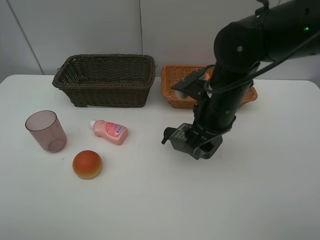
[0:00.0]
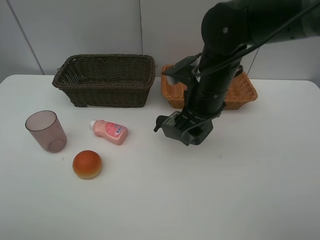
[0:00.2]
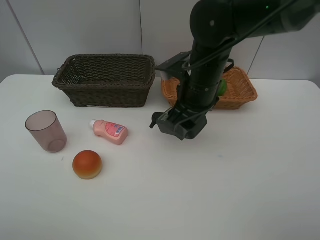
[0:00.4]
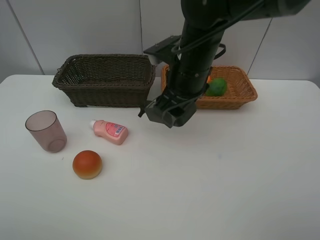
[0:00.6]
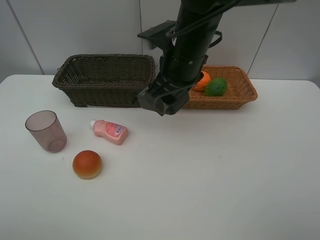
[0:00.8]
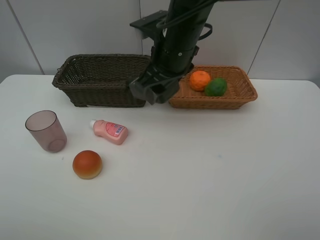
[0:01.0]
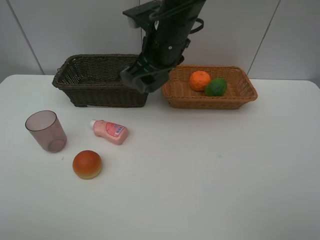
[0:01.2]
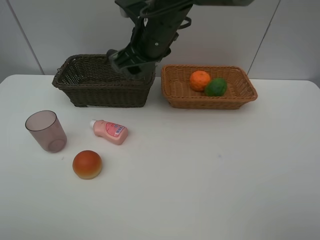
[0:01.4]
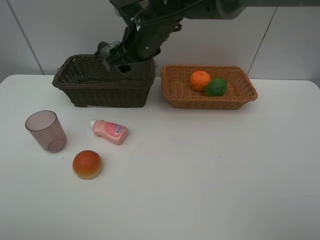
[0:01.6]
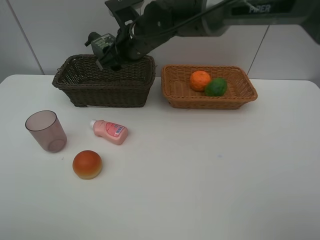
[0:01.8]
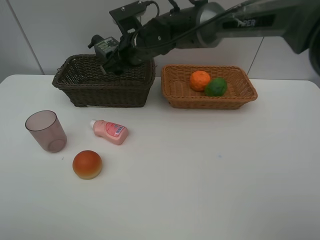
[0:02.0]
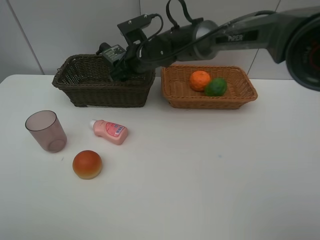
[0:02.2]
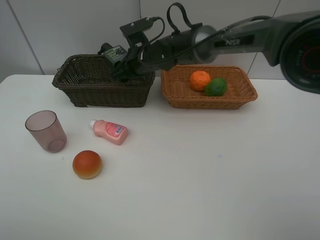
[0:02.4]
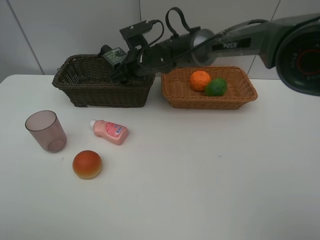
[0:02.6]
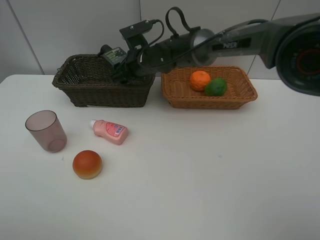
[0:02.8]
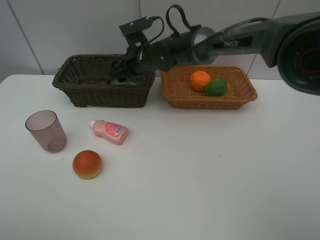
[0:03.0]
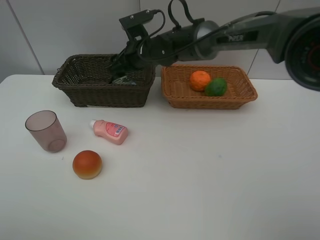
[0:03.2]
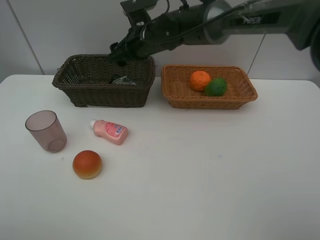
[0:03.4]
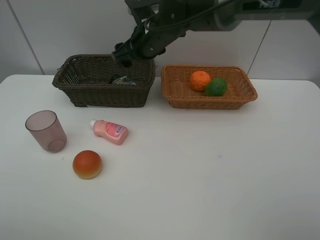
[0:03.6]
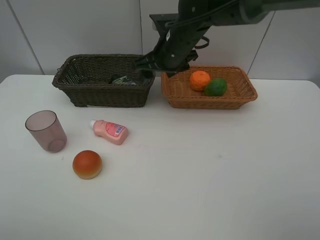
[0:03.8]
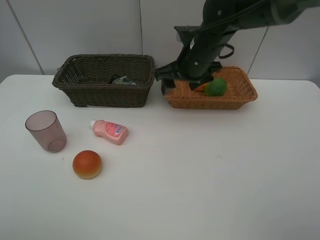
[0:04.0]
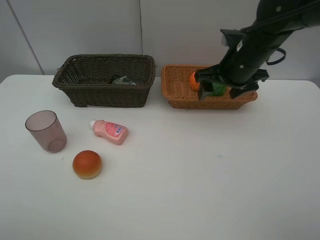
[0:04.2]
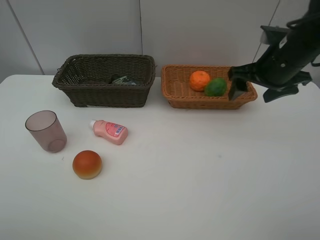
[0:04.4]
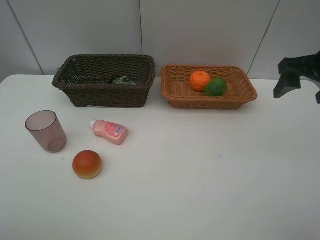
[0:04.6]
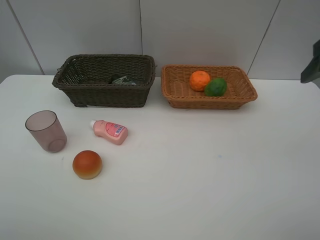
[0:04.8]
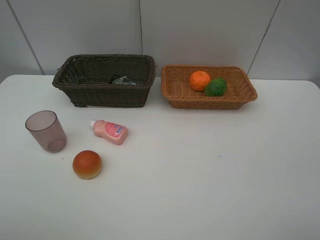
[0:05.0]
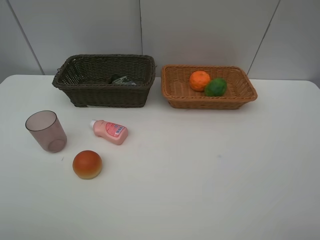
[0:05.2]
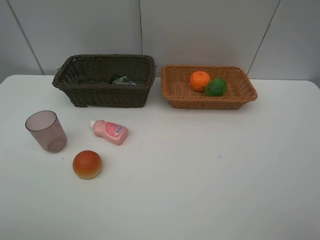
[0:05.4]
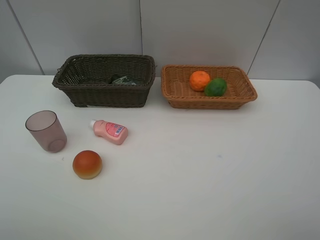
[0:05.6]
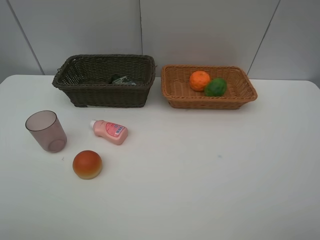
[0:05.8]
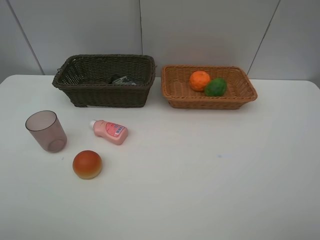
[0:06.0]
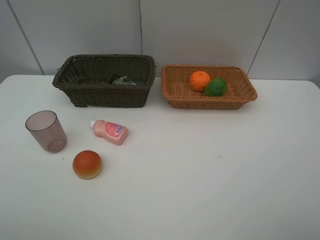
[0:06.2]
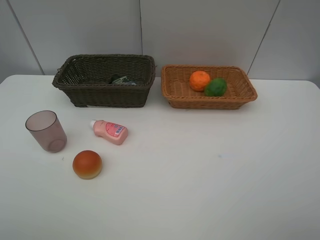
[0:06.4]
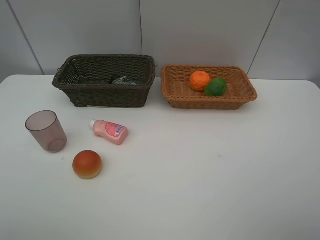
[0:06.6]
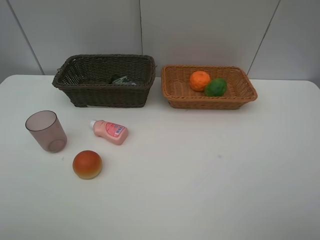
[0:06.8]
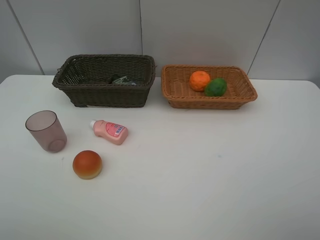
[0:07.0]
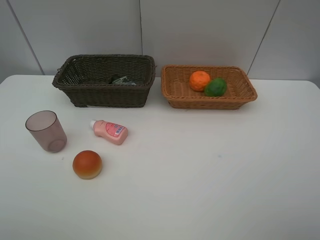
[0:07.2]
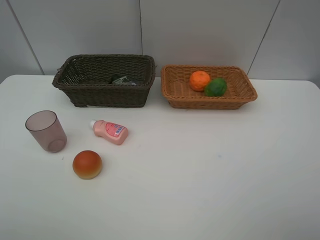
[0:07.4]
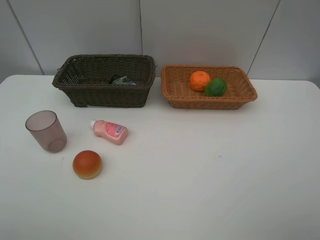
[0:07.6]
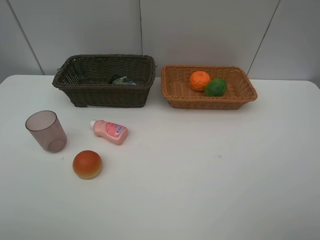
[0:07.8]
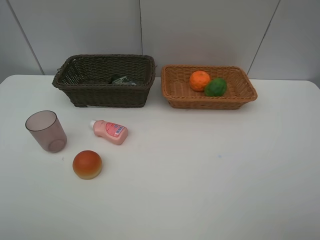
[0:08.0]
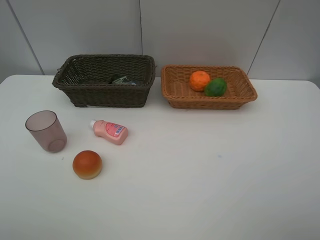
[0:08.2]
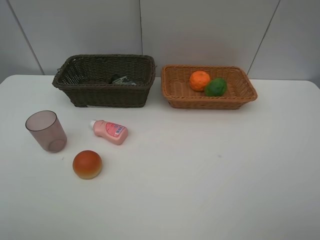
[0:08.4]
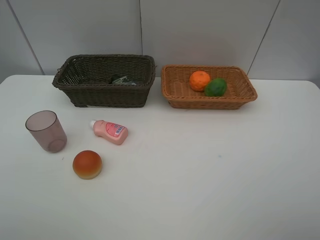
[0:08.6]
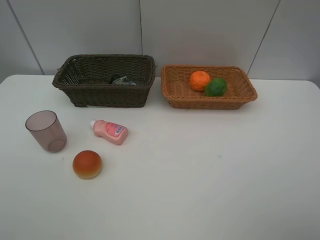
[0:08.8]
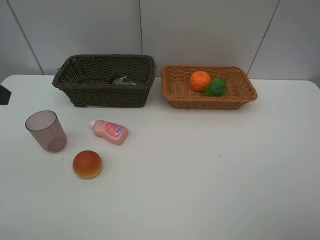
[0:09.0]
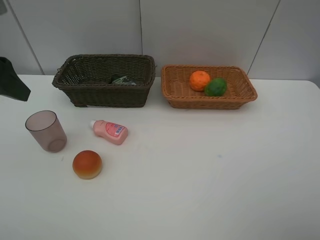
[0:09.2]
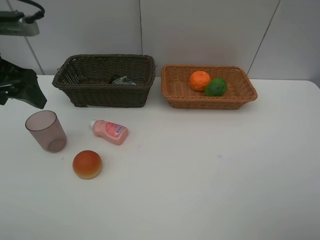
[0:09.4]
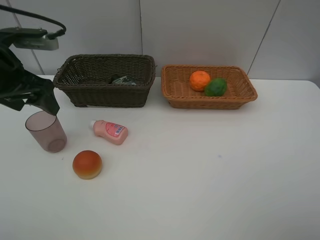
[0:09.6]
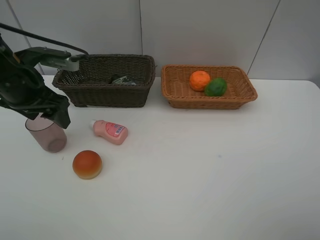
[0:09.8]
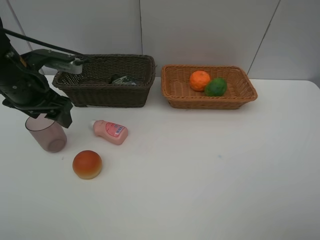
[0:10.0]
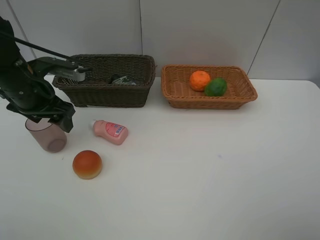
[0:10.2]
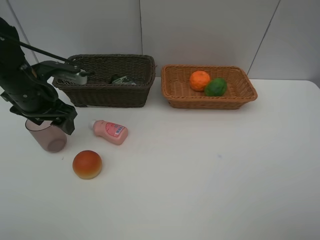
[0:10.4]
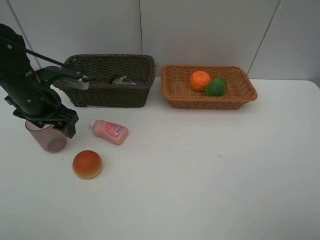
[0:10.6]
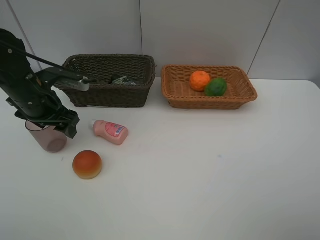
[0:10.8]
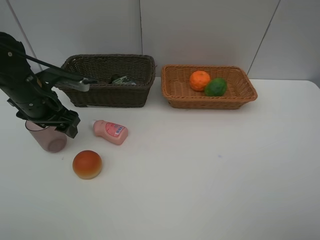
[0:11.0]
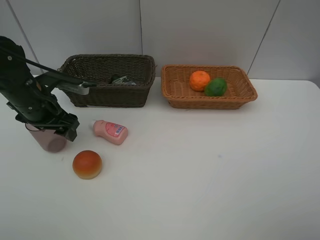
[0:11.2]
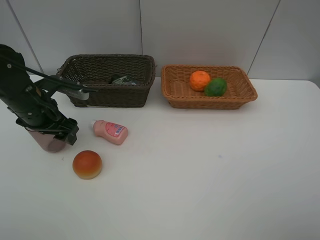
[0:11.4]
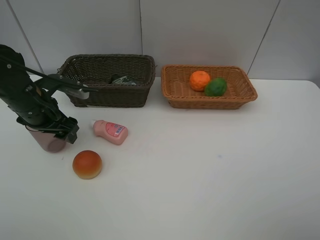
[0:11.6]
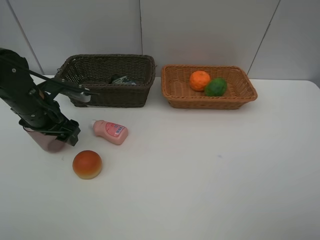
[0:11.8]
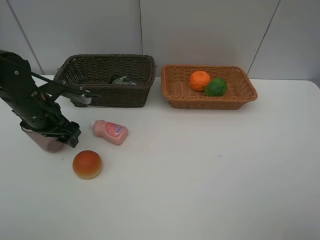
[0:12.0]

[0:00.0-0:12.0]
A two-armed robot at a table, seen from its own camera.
Task of the whole recording: place multiple objects separately in different baskets.
0:00.0 to 0:01.6: The right gripper travels to the left and forward by some 15 cm.
0:01.6 to 0:03.0: The right gripper heads downward and forward, covering about 10 cm.
0:03.0 to 0:04.4: The right gripper is displaced to the right and backward by some 30 cm.
0:04.4 to 0:06.0: The right gripper moves backward, some 30 cm.
0:09.0 to 0:10.4: The left gripper heads downward and forward, covering about 20 cm.
0:10.4 to 0:12.0: There are only small adjustments of the grippers.

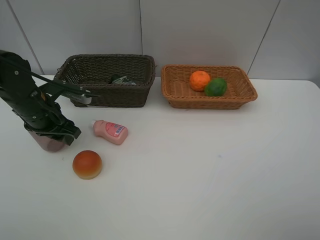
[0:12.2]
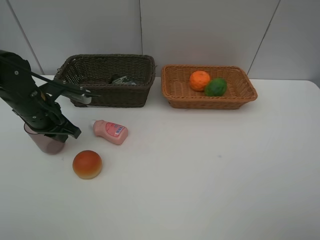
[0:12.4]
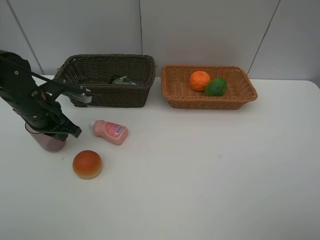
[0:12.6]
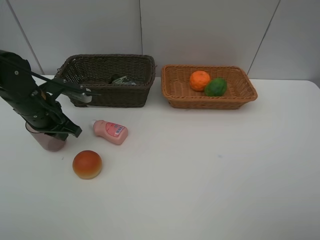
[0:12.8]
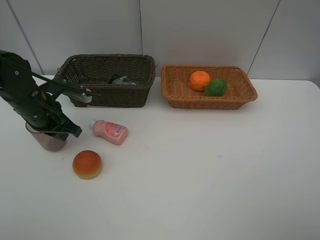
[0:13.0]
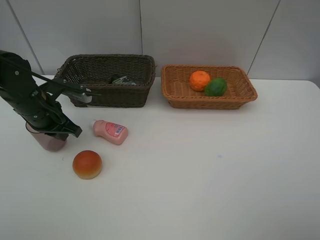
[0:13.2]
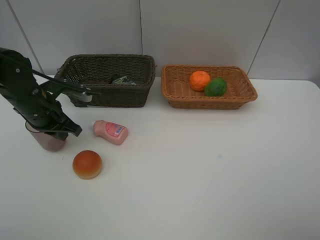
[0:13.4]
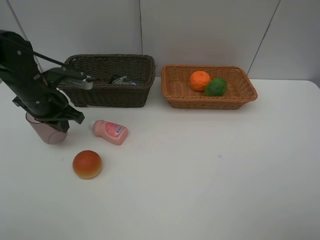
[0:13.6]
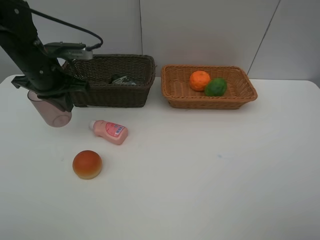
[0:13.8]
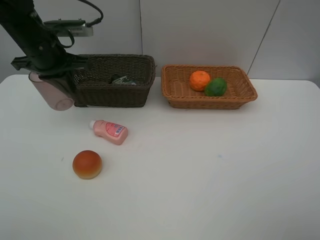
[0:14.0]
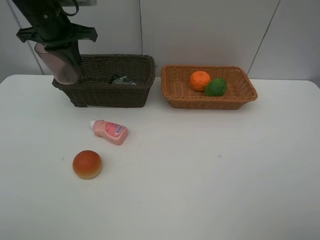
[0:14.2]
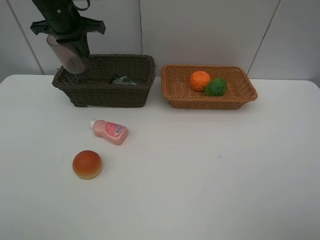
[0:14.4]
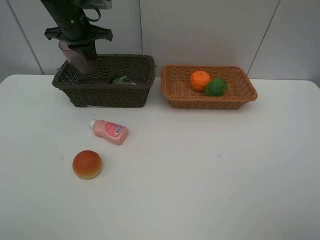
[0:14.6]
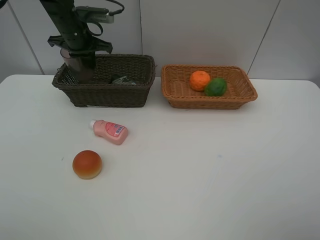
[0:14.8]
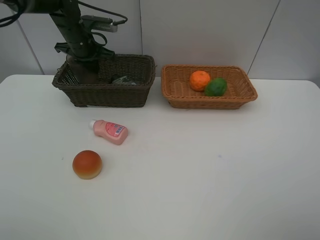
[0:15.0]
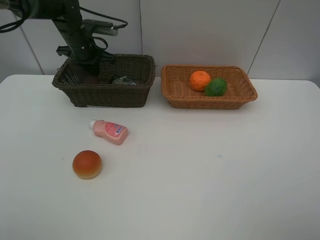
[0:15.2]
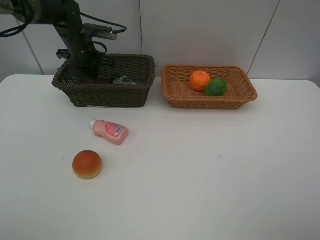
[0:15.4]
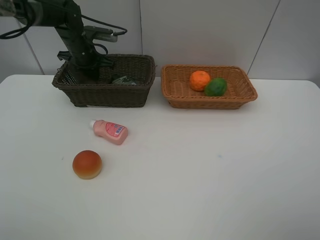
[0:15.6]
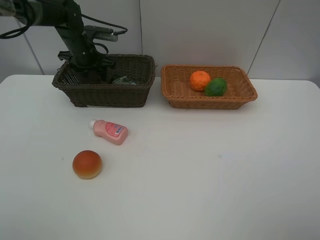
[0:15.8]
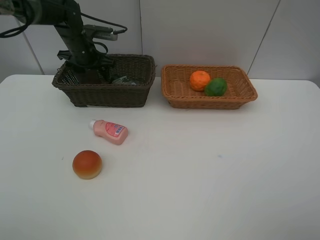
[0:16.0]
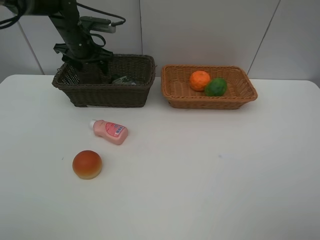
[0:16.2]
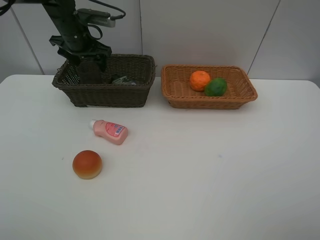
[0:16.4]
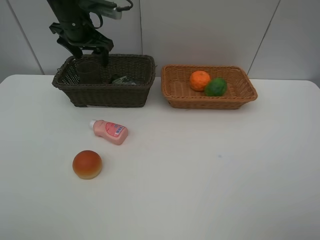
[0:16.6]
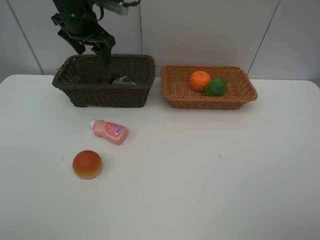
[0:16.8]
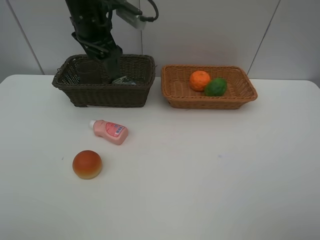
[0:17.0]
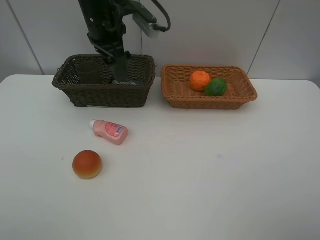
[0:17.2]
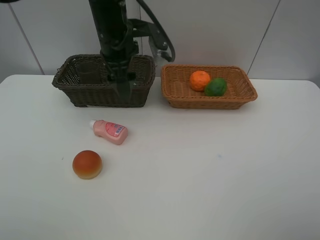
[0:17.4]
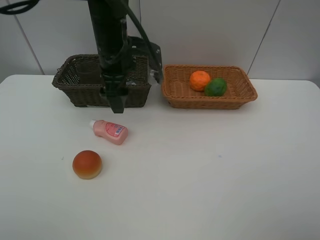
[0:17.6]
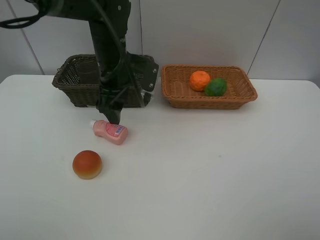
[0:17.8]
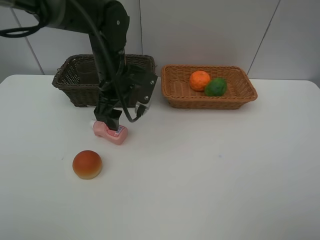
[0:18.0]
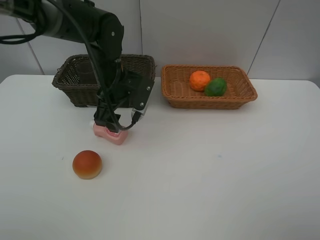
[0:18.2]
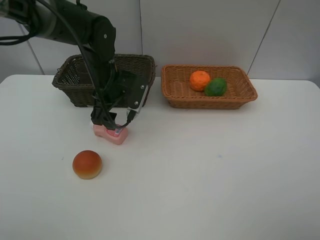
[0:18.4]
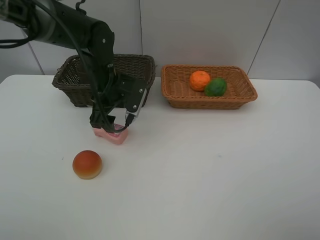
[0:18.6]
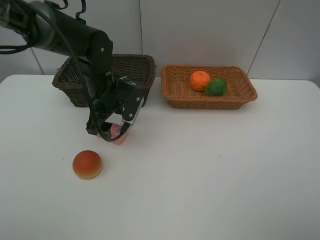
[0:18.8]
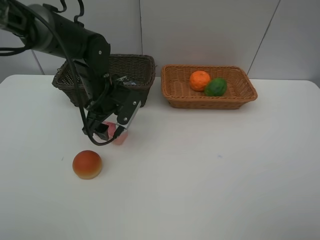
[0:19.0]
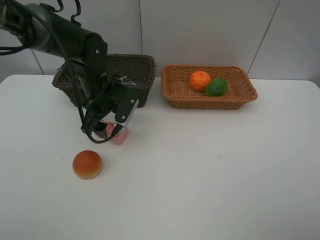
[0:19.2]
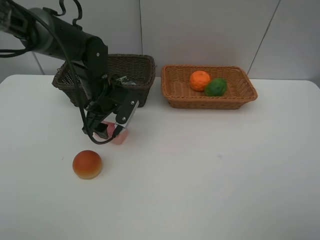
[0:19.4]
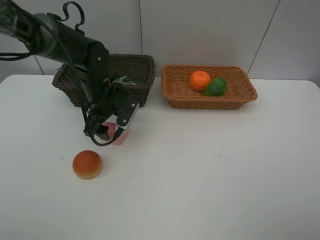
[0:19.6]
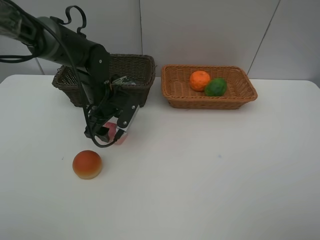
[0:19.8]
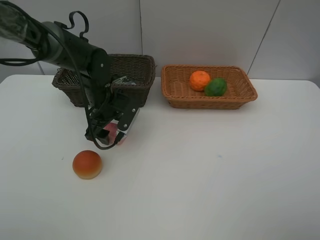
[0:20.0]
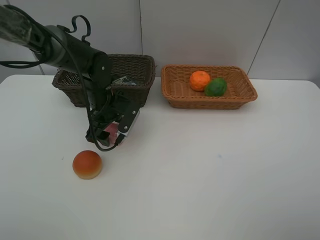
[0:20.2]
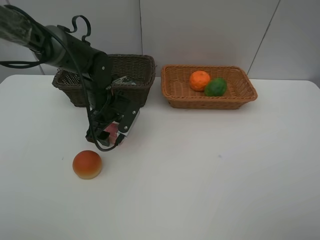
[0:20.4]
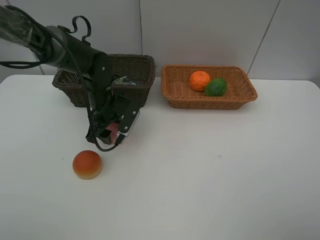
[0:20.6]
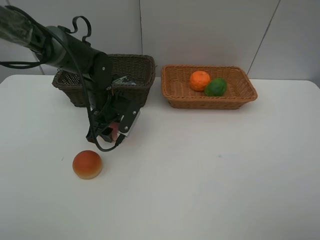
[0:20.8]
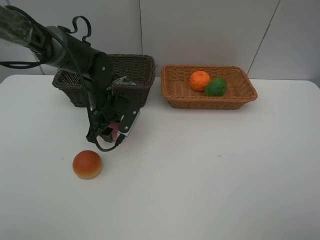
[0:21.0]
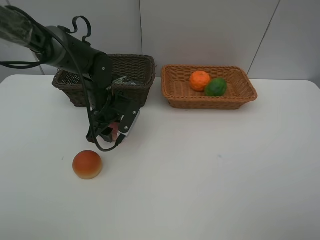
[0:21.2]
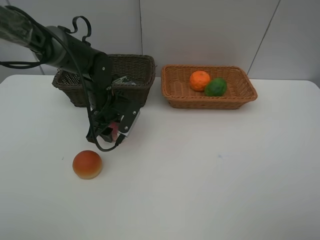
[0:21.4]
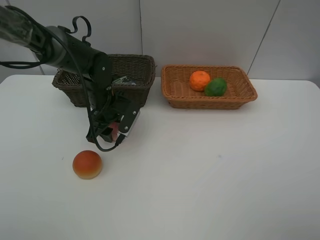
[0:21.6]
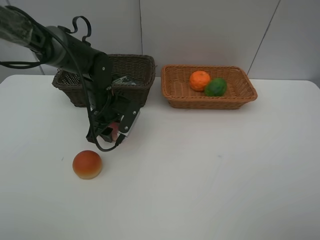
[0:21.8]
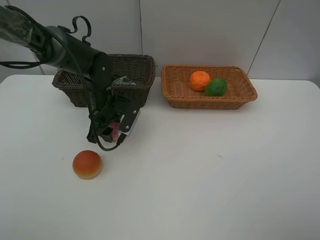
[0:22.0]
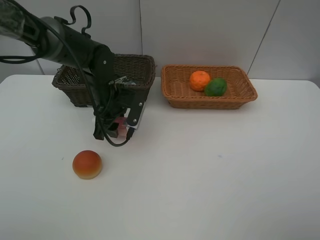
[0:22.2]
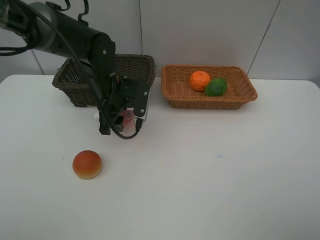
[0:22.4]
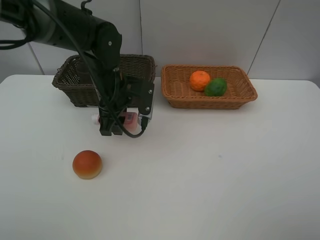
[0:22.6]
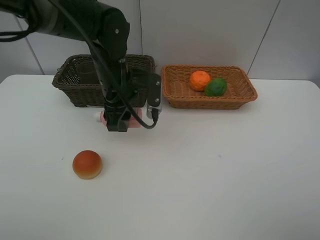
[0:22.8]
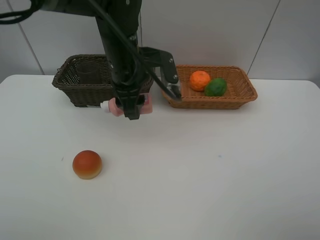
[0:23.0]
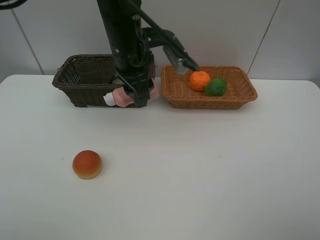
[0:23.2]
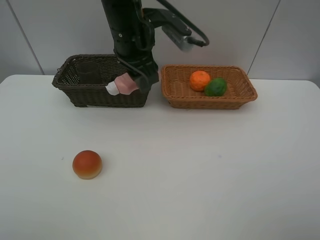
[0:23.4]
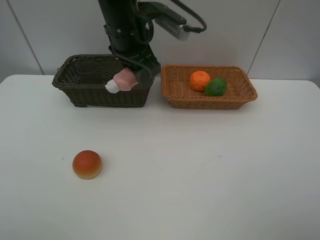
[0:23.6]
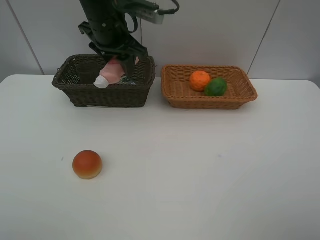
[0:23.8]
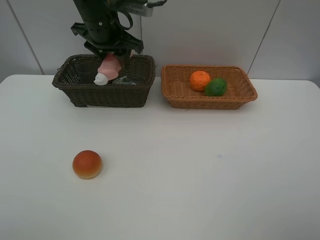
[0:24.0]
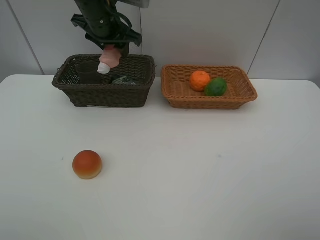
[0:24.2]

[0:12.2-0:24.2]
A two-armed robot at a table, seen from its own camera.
Task of the whole recording: place multiple objects separately in different baskets.
0:12.2 to 0:13.8: The left gripper goes about 10 cm upward and forward, and closes up.
0:13.8 to 0:15.2: The left gripper moves forward, some 15 cm.
0:15.2 to 0:16.6: The left gripper travels upward by approximately 10 cm, and opens its fingers.
0:16.6 to 0:18.2: The left gripper goes approximately 15 cm backward, downward and to the right.
0:18.2 to 0:19.8: The left gripper is displaced downward by about 5 cm.
0:19.8 to 0:21.2: The left gripper closes up.
0:21.2 to 0:22.6: The left gripper shifts some 5 cm upward.
0:22.6 to 0:24.2: The left gripper goes some 15 cm upward and forward.
